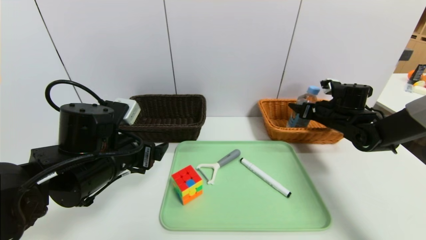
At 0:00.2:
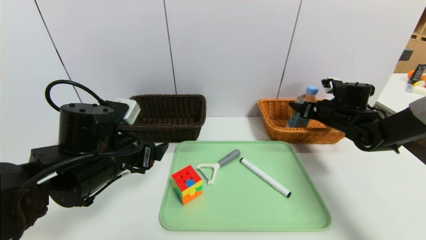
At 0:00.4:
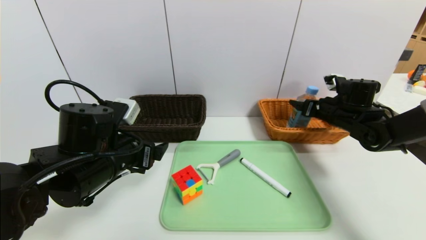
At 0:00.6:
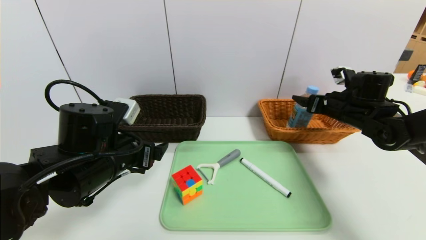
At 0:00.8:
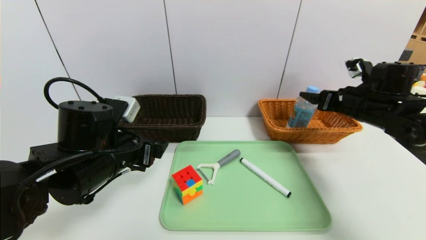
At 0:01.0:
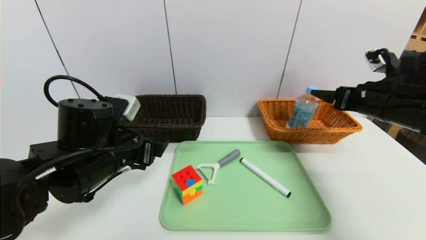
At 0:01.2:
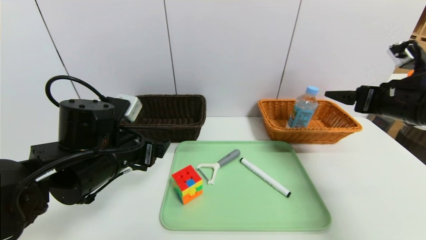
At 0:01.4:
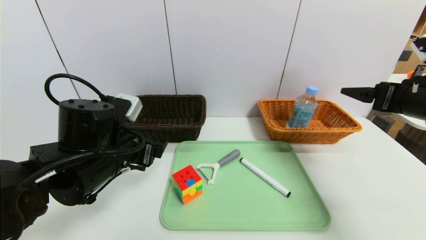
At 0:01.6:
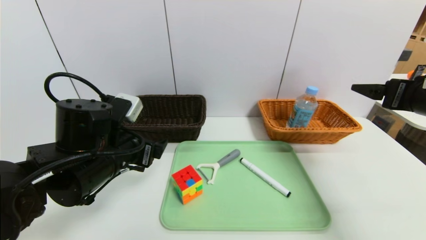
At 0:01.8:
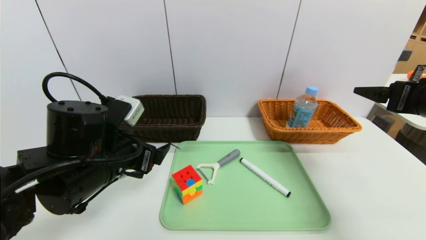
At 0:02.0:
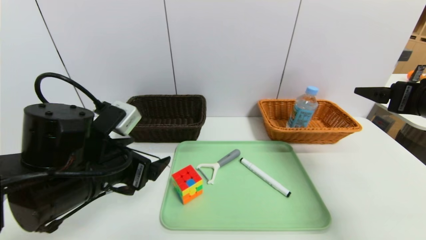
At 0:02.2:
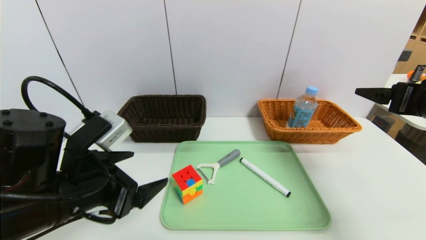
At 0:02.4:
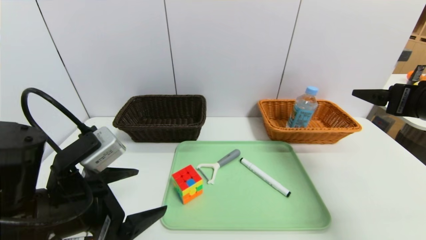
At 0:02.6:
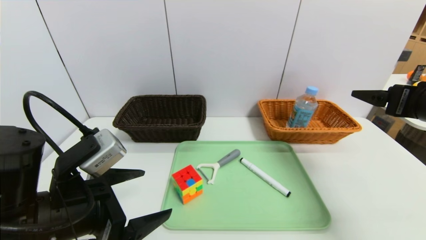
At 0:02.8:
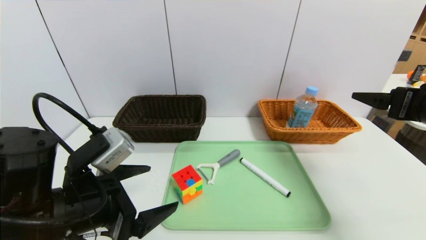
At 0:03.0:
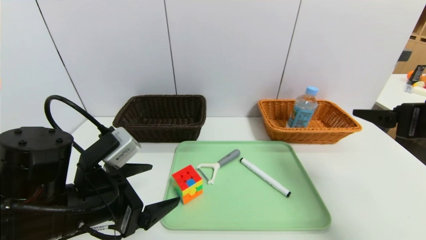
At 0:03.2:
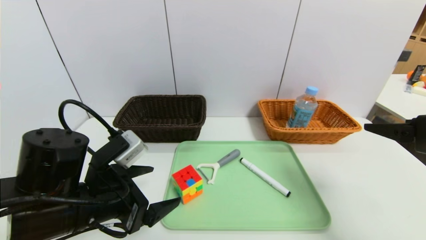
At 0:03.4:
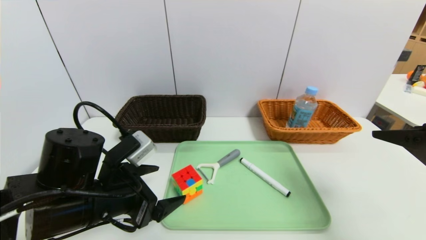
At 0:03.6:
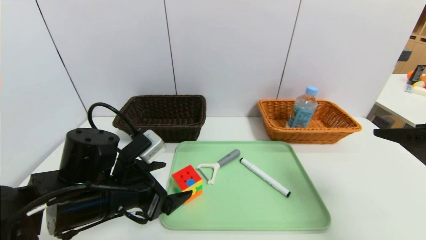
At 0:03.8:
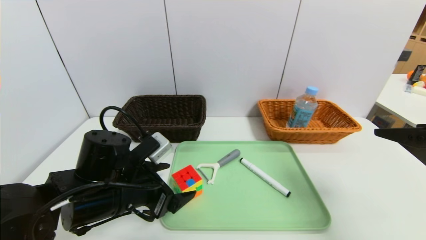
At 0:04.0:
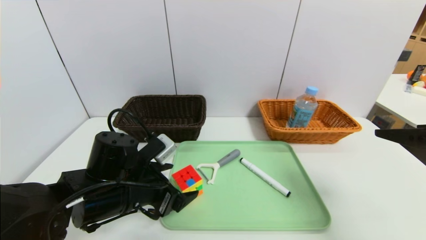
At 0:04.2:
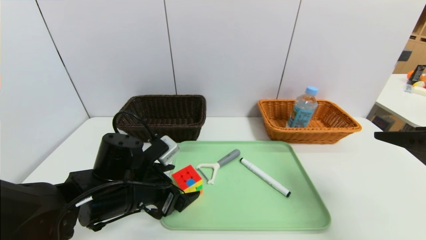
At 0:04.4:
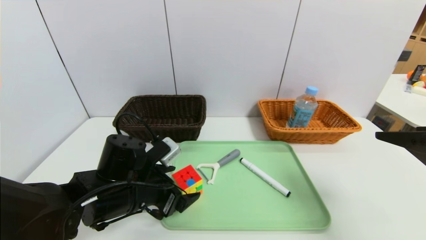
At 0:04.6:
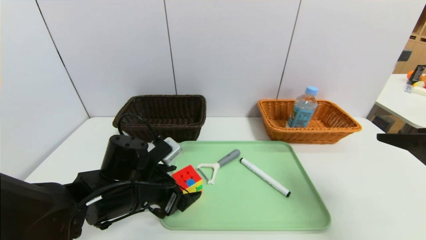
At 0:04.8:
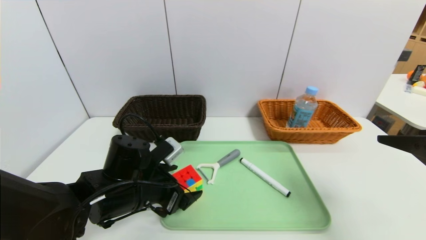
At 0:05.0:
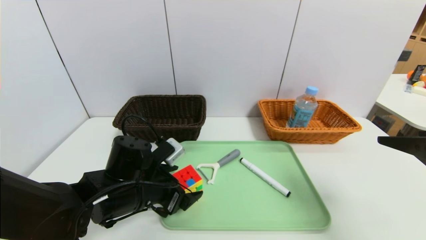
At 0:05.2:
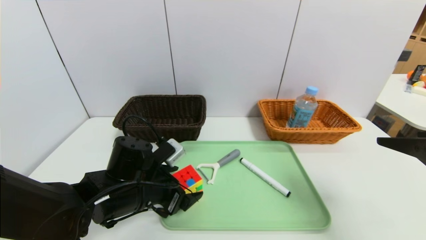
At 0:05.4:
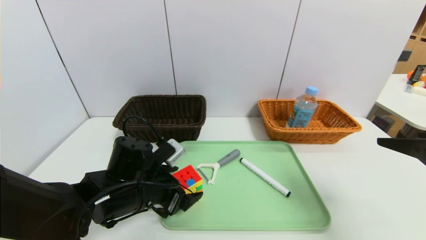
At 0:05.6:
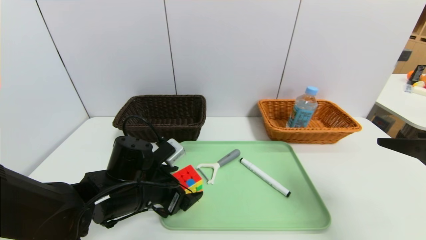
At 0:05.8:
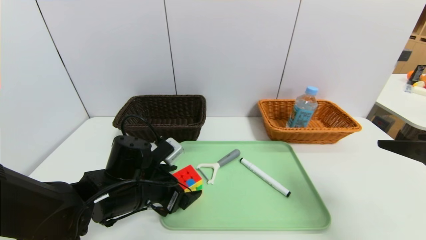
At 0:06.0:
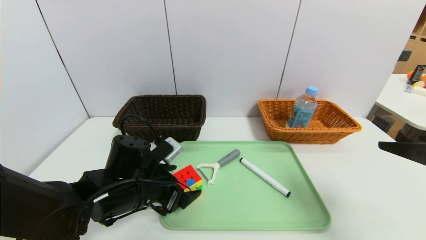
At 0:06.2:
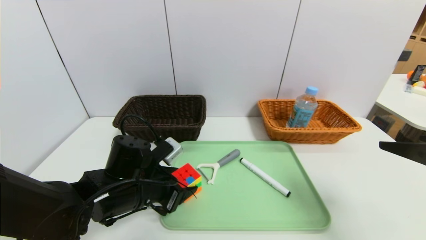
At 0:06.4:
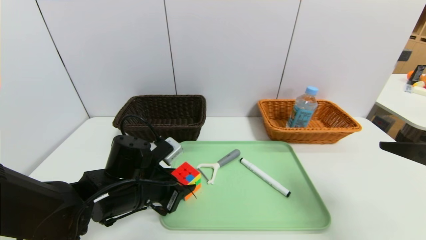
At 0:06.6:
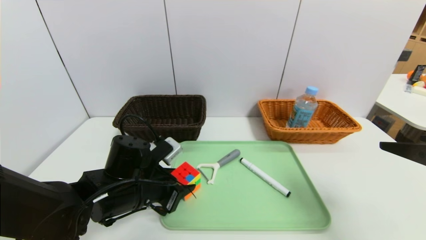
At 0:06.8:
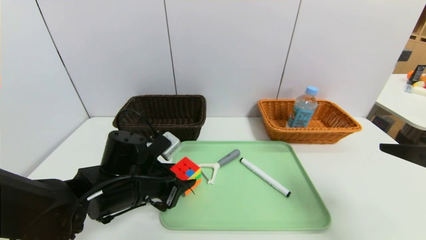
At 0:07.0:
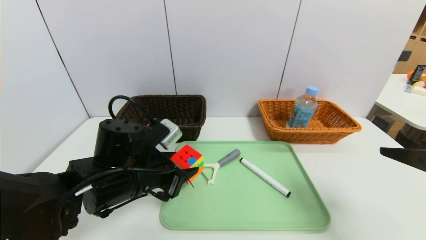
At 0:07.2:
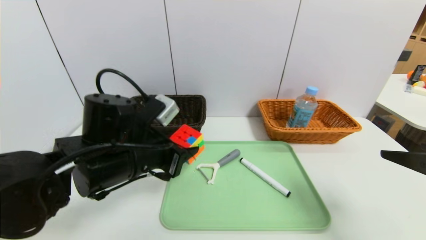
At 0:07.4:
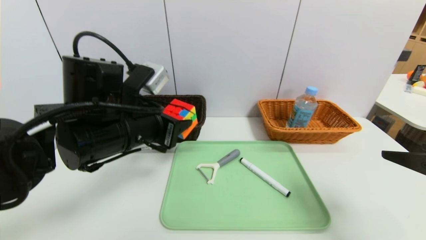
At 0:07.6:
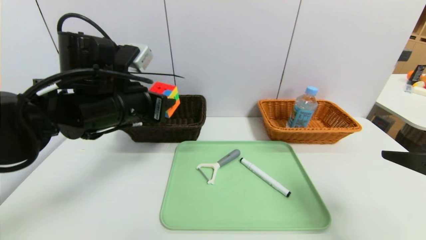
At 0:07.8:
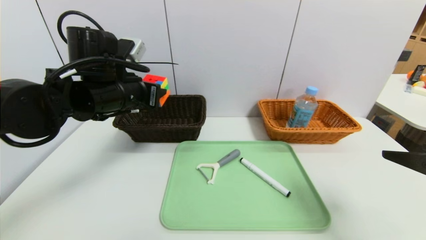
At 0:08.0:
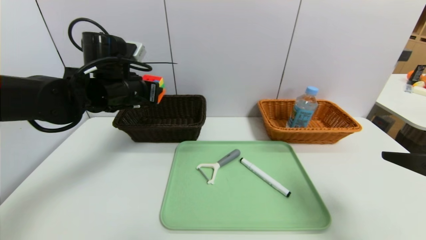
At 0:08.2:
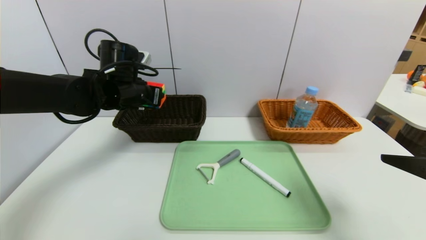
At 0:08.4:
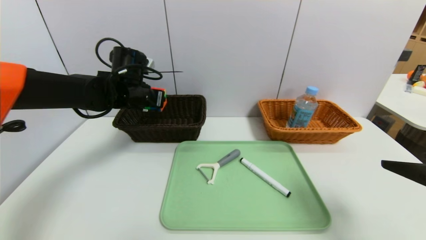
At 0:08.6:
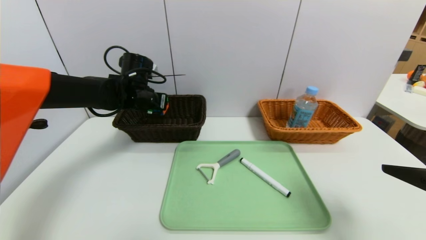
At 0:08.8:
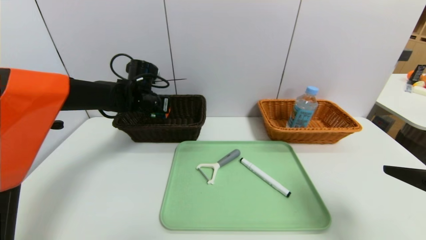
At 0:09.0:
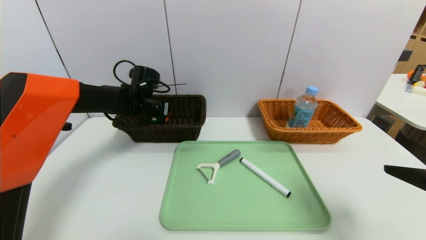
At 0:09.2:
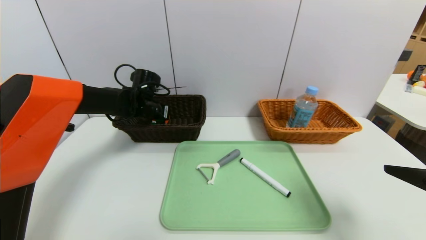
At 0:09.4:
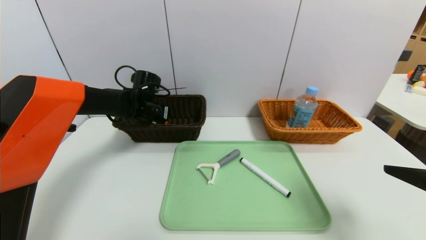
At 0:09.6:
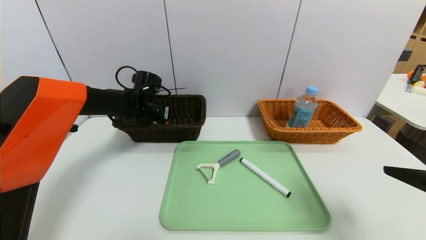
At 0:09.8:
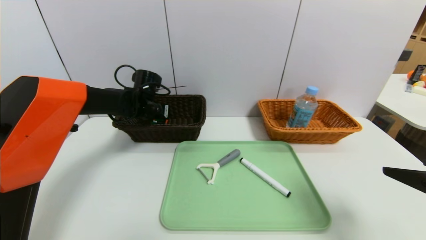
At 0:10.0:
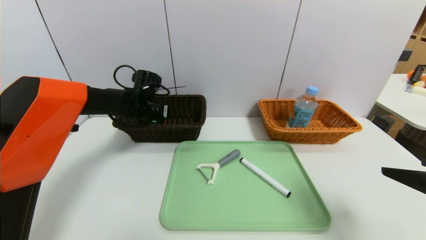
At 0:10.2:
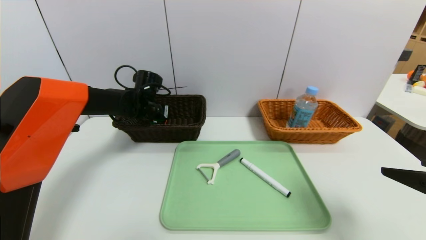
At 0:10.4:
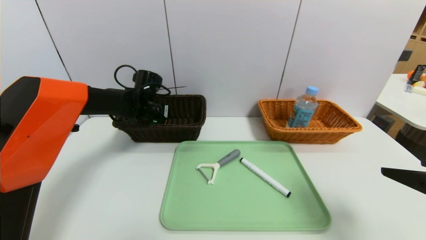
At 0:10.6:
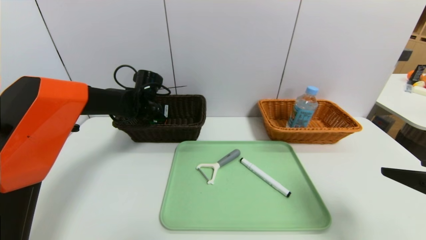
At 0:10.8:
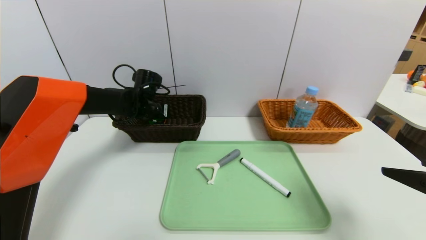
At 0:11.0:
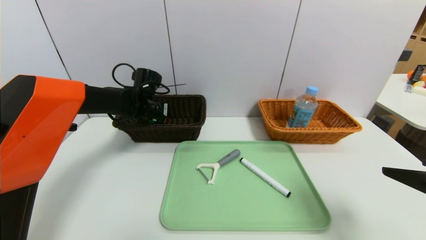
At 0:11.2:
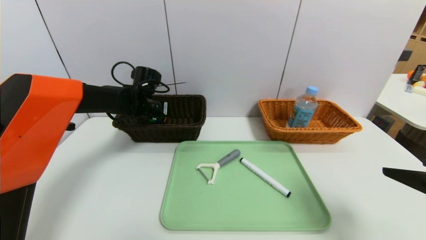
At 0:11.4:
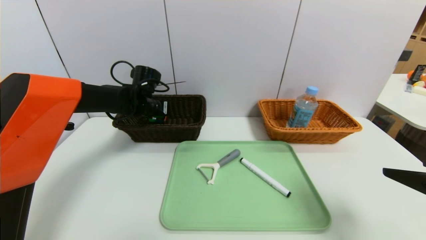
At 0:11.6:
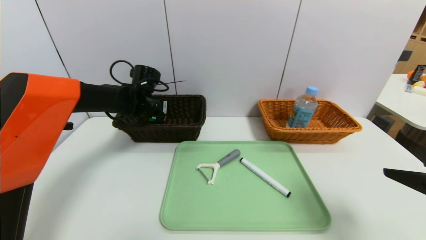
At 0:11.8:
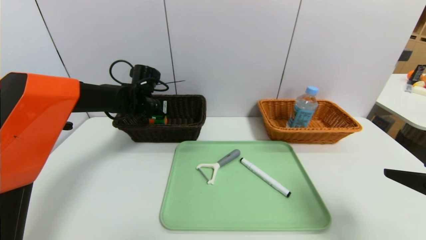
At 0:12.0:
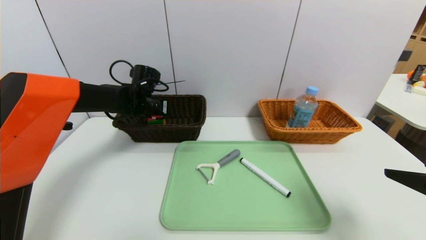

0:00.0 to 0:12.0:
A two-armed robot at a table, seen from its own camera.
Task of the whole recording: place the food in the right basket with the right gripper, and place the non food items in the left basket with the left gripper.
0:00.0 to 0:01.6: The right gripper travels backward and upward by roughly 25 cm.
0:01.6 to 0:03.0: The left gripper is displaced backward by approximately 5 cm.
0:03.0 to 0:04.4: The left gripper travels forward and downward by approximately 10 cm.
0:04.4 to 0:06.0: Both grippers stay put.
0:06.0 to 0:07.6: The left gripper is displaced upward by approximately 15 cm, and closes up.
0:07.6 to 0:09.0: The left gripper heads forward and downward, covering roughly 20 cm.
0:09.0 to 0:10.4: Neither gripper changes place.
0:10.4 to 0:12.0: The grippers make only small movements.

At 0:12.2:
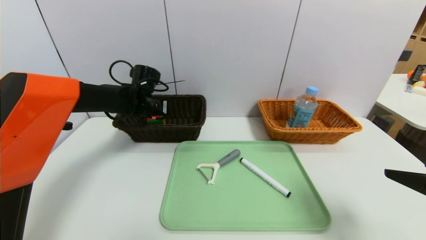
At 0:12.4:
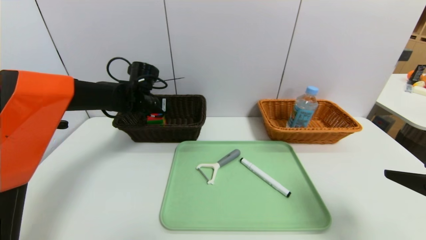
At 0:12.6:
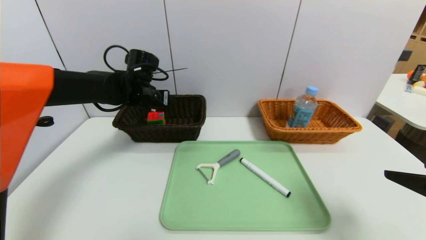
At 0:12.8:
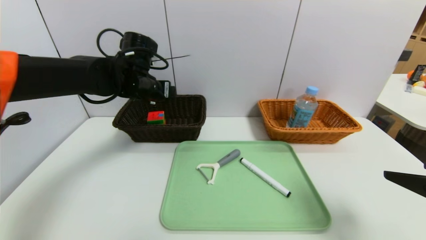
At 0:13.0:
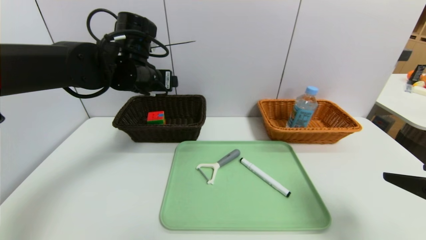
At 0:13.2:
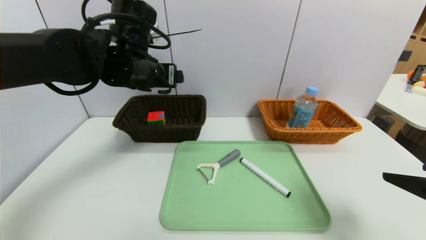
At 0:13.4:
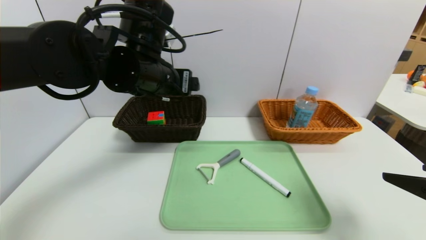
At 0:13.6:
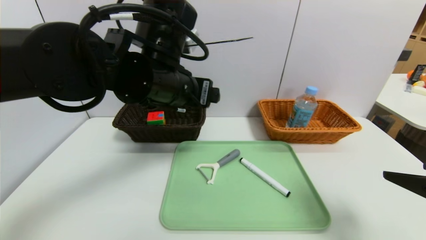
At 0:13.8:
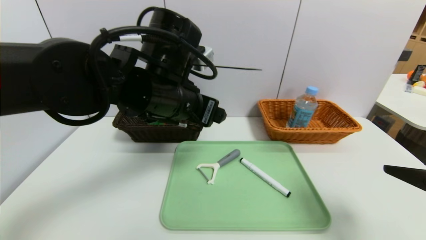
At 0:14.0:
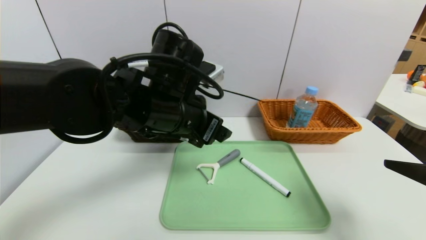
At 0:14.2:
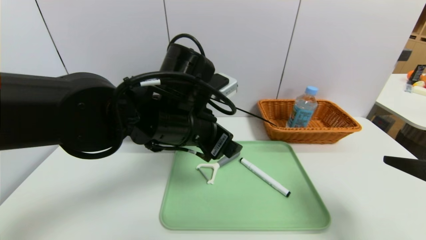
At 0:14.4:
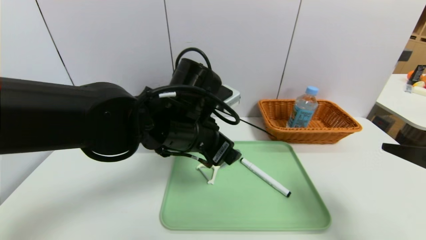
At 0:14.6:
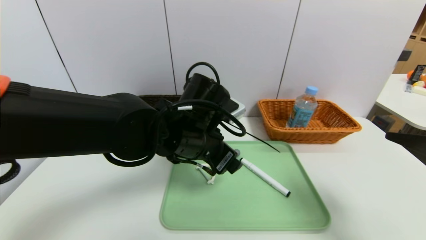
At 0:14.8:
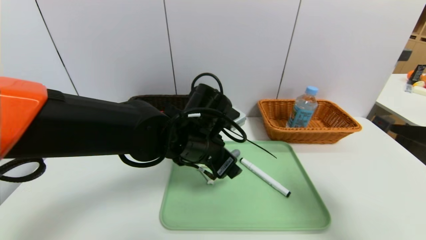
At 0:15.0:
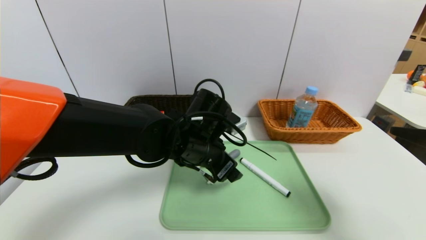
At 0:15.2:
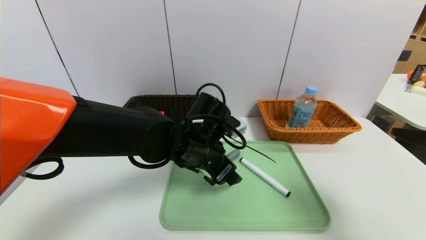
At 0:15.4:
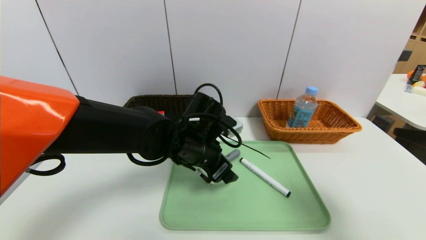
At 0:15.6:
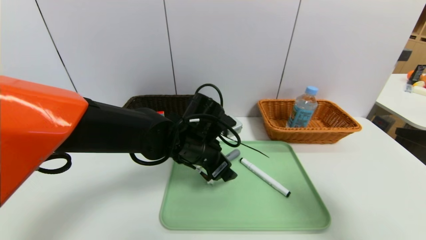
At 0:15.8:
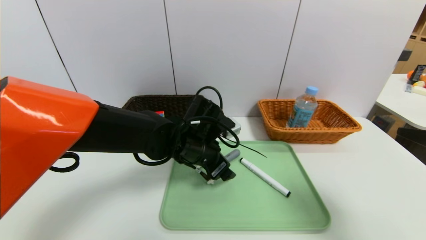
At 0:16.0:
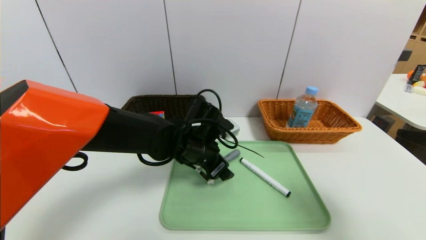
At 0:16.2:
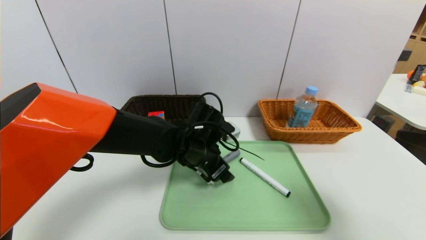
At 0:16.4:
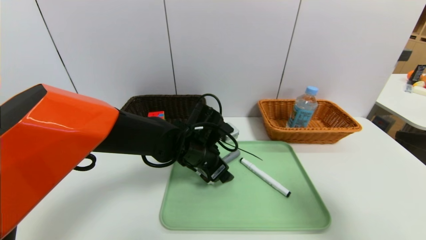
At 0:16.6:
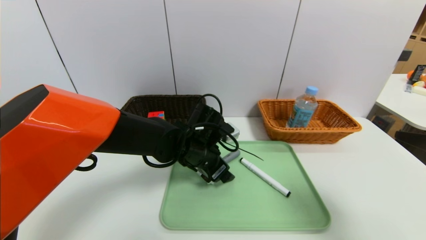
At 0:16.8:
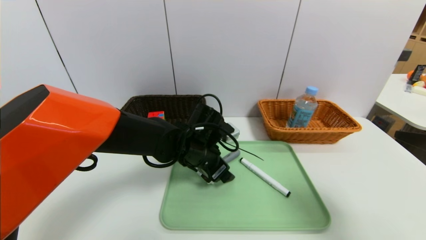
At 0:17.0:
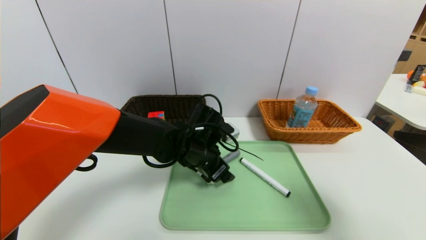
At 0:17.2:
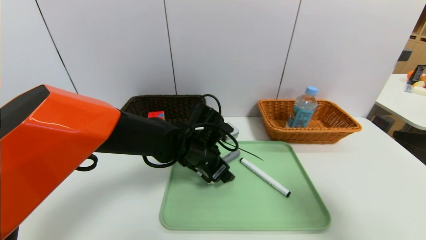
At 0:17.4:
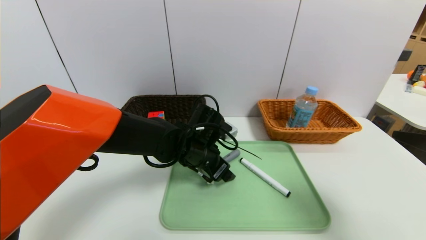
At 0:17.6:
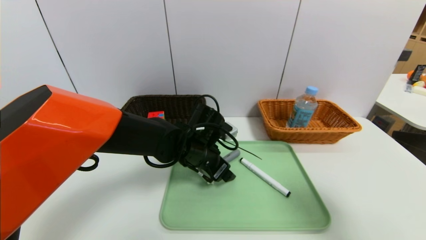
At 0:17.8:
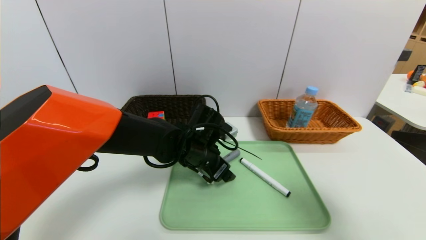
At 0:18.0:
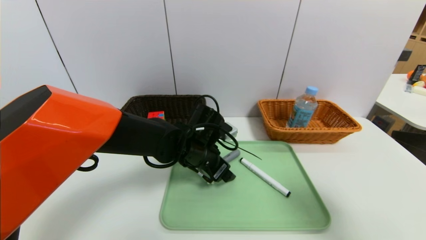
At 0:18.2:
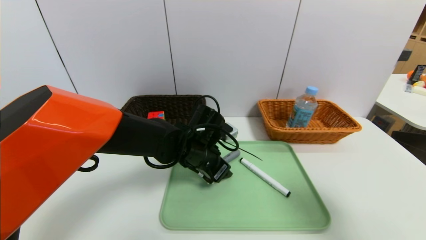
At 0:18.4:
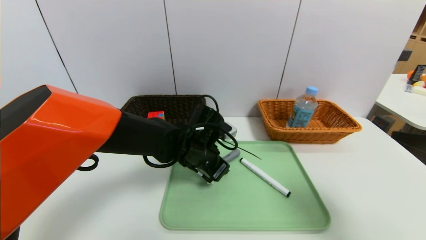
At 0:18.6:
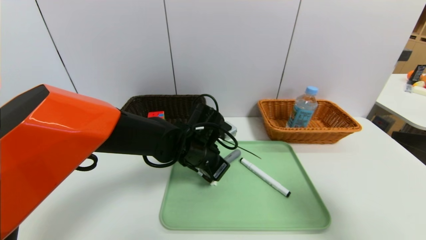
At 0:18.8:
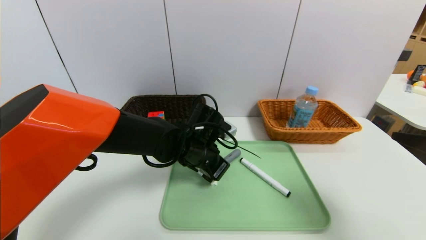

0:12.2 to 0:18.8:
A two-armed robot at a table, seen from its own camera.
Task of the whole recording: place the food in the right basket with the right gripper, and place the non food items in the left basket with the left gripper.
0:12.2 to 0:13.8: The left gripper goes about 25 cm backward, to the right and upward.
0:13.8 to 0:15.4: The left gripper shifts roughly 10 cm downward.
0:15.4 to 0:17.2: There are only small adjustments of the grippers.
0:17.2 to 0:18.8: The left gripper closes up.
